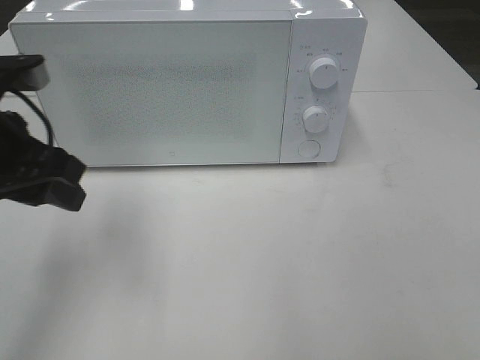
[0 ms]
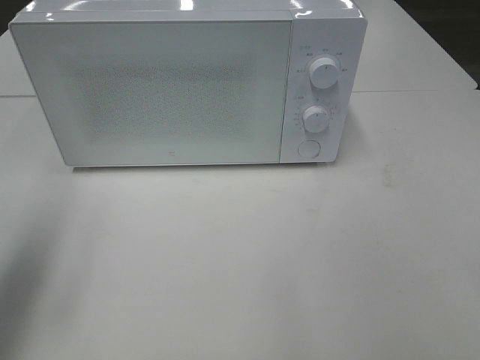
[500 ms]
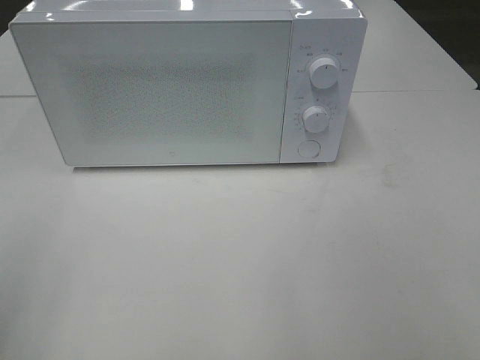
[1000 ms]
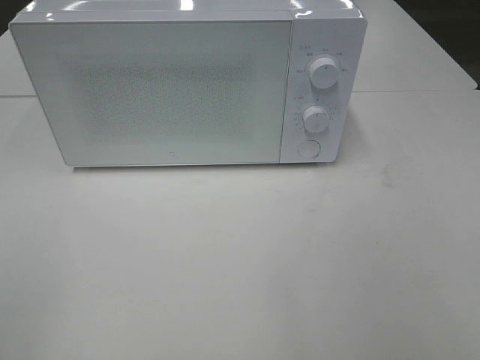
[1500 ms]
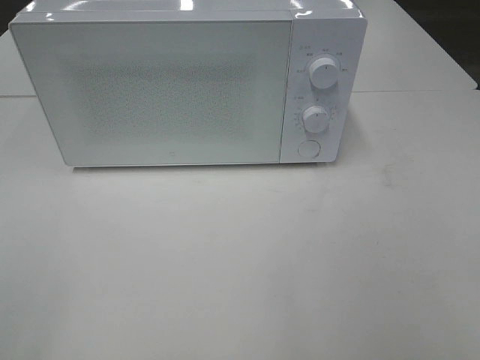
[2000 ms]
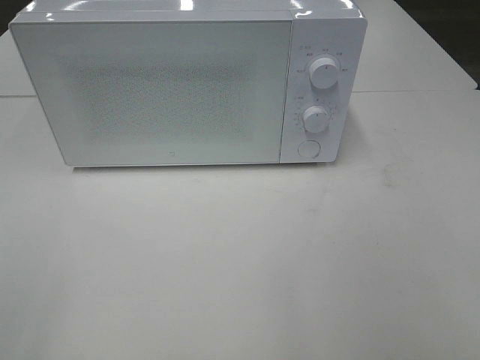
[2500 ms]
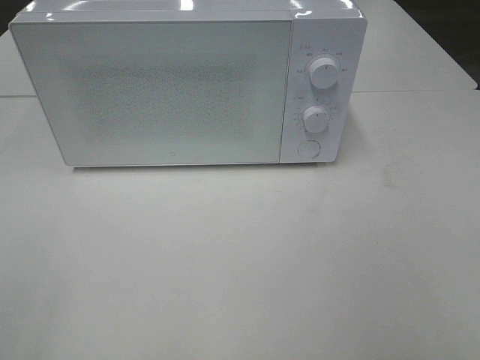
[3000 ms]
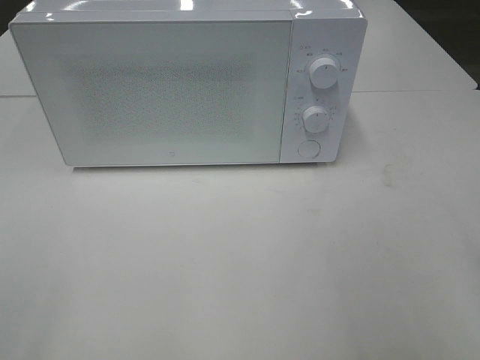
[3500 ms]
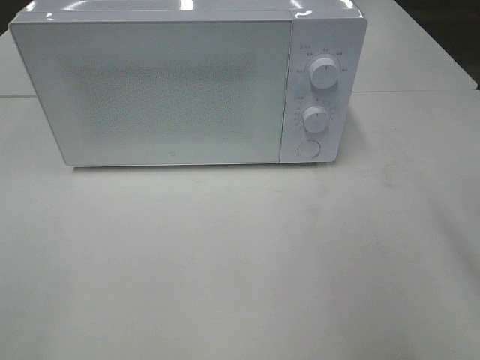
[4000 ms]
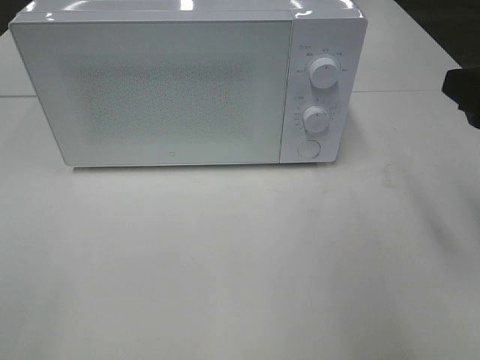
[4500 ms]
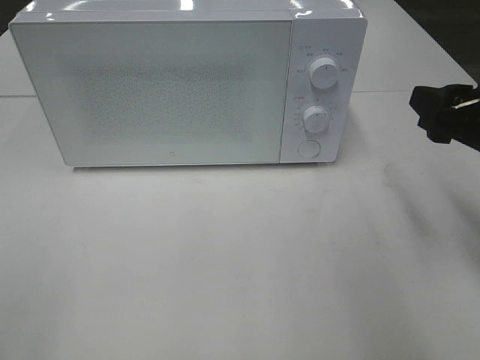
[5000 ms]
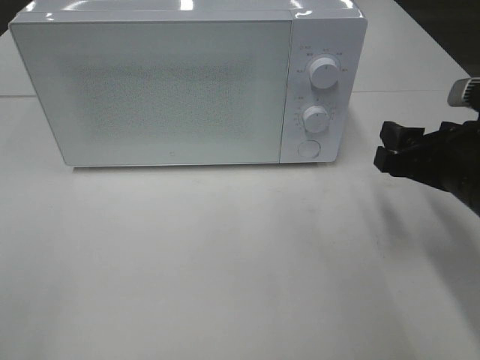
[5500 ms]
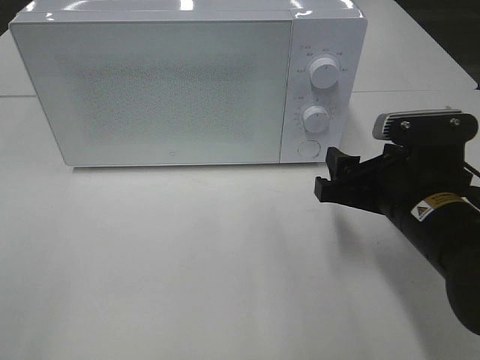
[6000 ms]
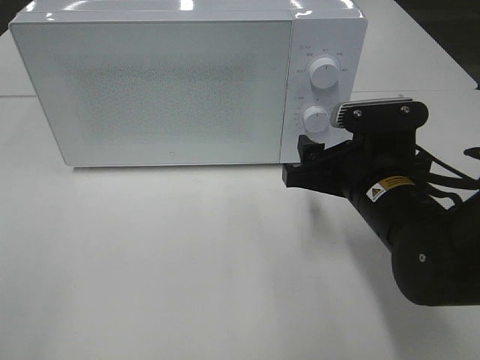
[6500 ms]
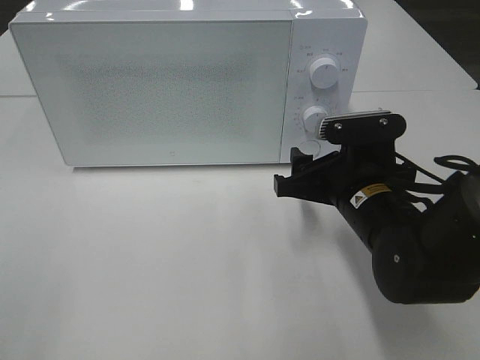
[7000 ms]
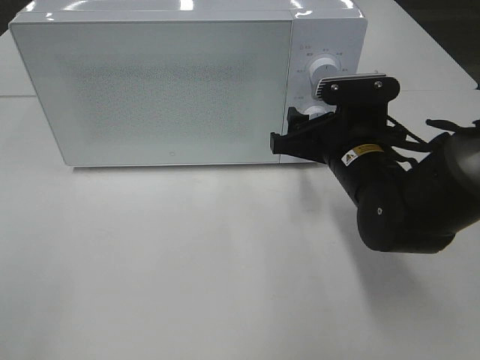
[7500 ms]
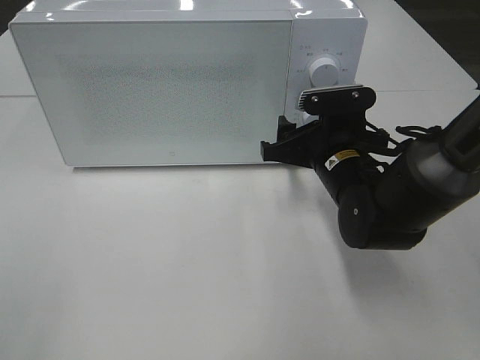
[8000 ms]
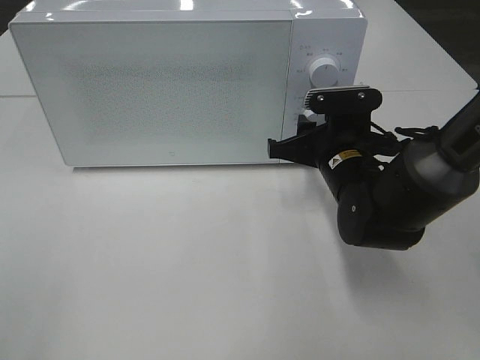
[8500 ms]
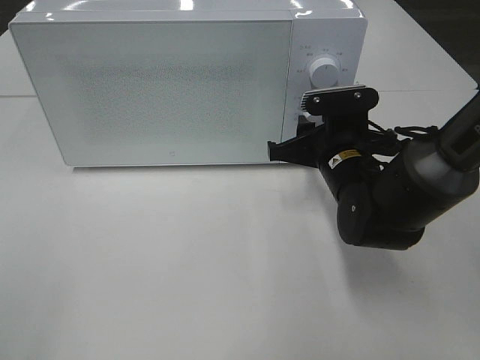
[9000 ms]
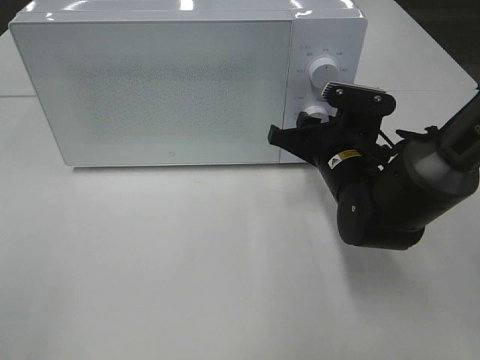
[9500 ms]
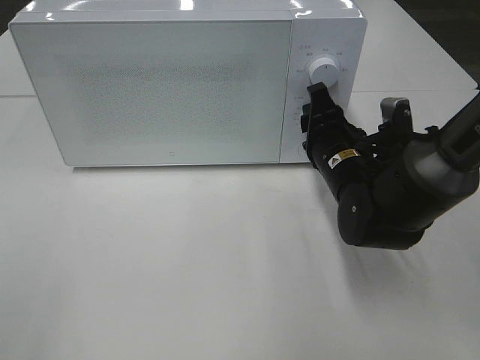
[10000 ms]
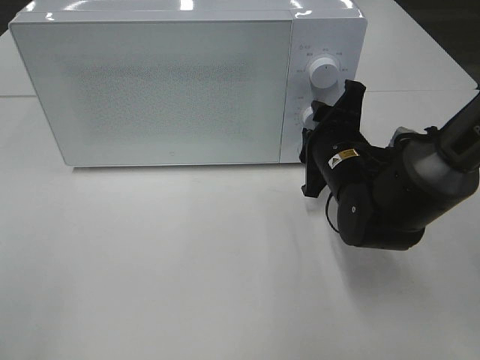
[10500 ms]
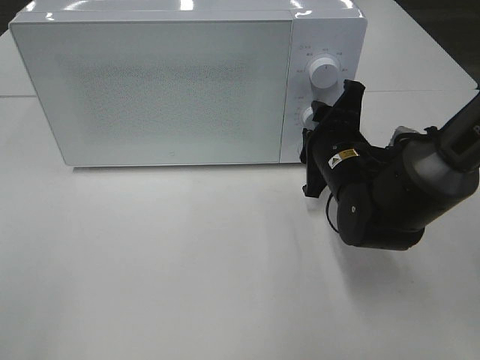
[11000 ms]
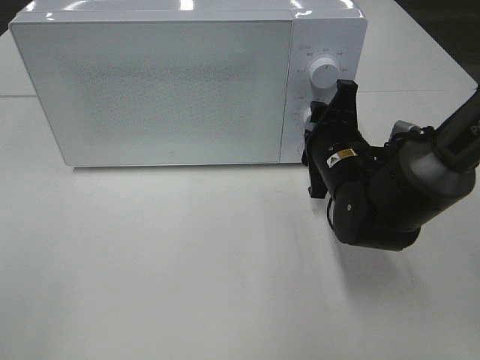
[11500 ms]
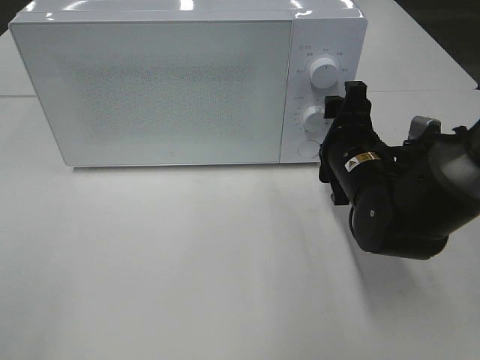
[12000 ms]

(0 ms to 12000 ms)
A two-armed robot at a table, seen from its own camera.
Task of the whole recording: Heat the burger.
Step, 0 ms - 11500 ms: Right hand: twist timer button.
0 ms - 2000 ms: The left gripper travels backward and to the left by about 25 cm.
4000 ms - 6000 ms: The right gripper heads downward, to the left and forward, covering roughly 20 cm.
6000 ms - 8000 ms: The right gripper travels forward by roughly 10 cm.

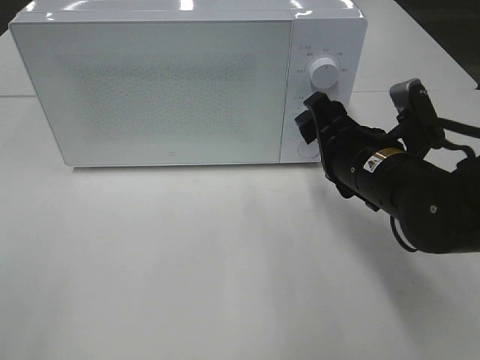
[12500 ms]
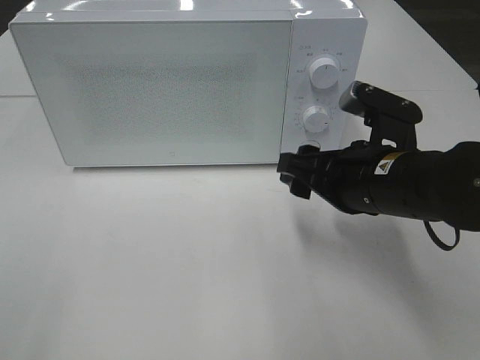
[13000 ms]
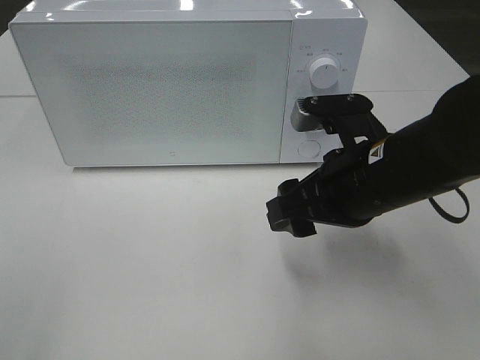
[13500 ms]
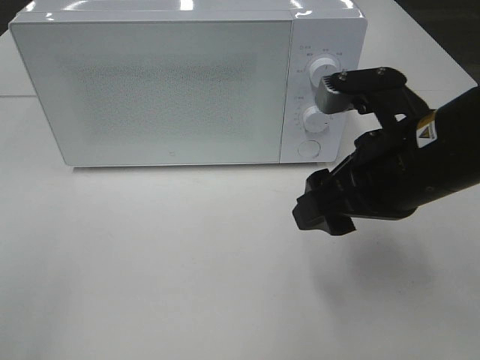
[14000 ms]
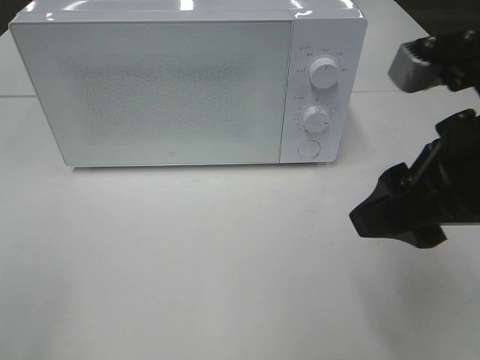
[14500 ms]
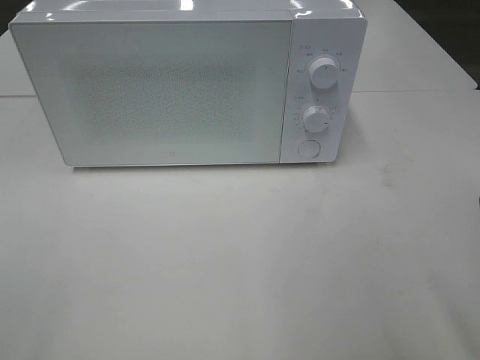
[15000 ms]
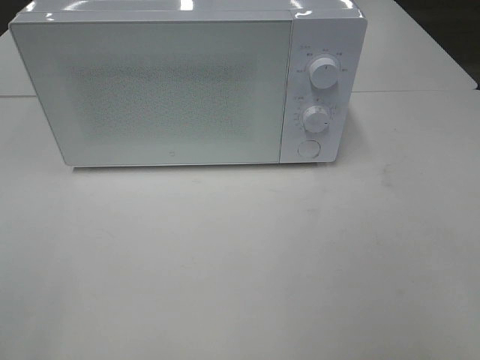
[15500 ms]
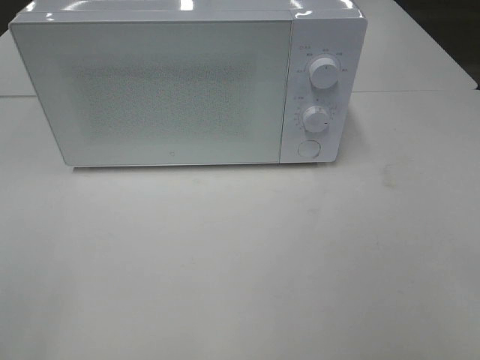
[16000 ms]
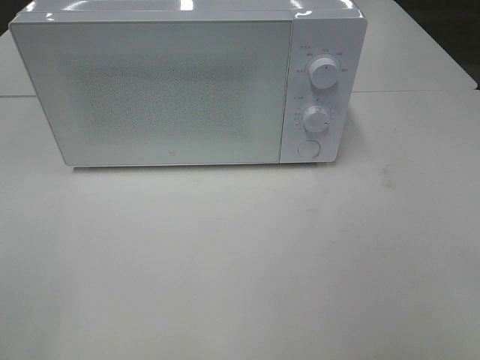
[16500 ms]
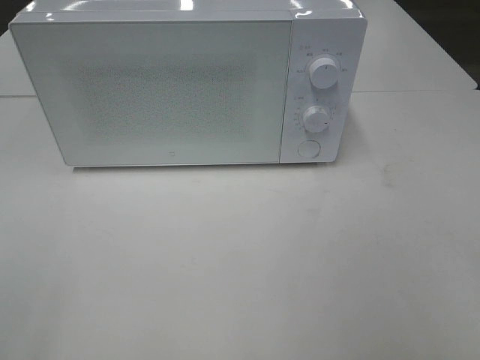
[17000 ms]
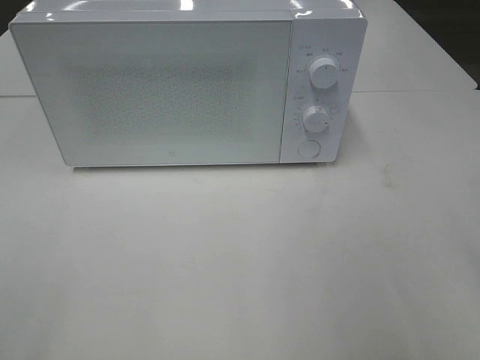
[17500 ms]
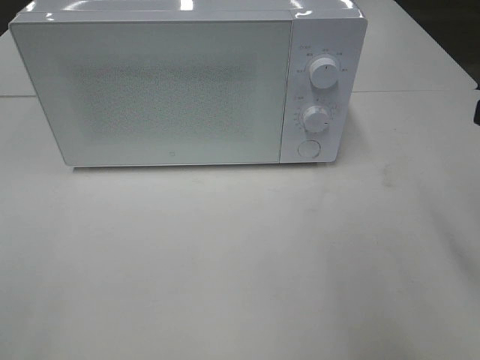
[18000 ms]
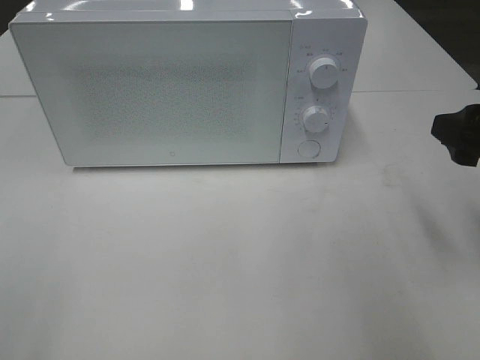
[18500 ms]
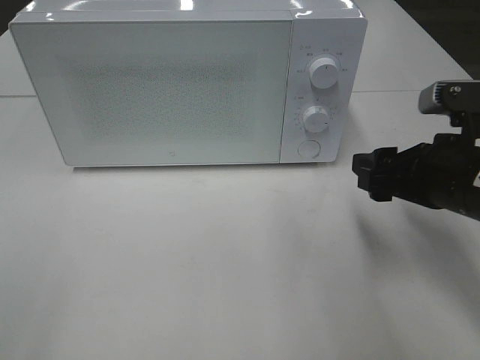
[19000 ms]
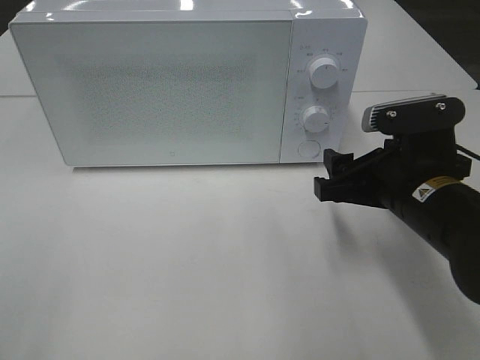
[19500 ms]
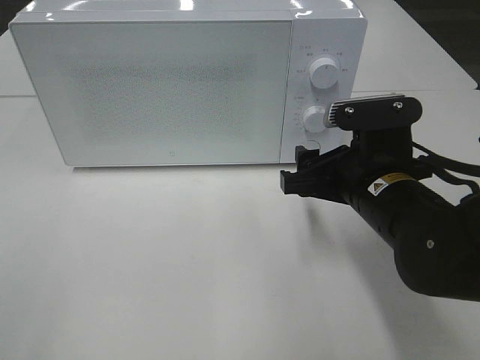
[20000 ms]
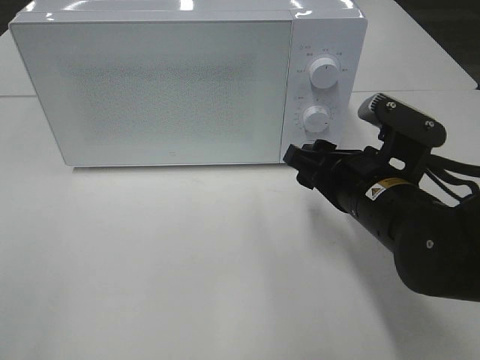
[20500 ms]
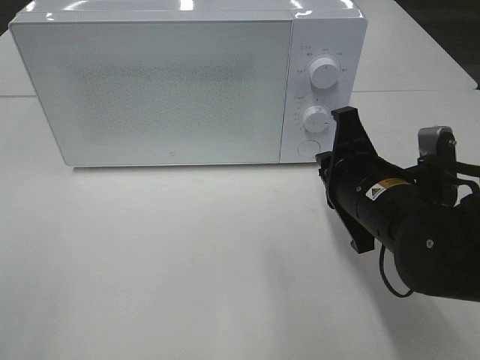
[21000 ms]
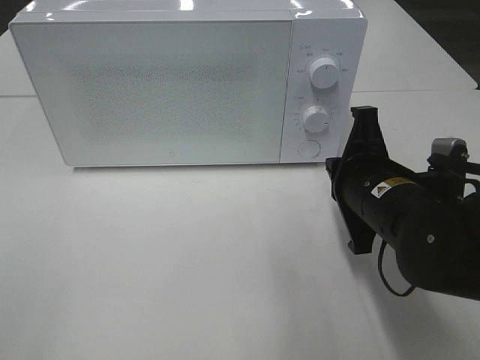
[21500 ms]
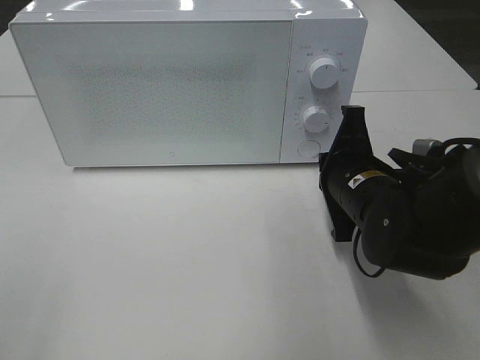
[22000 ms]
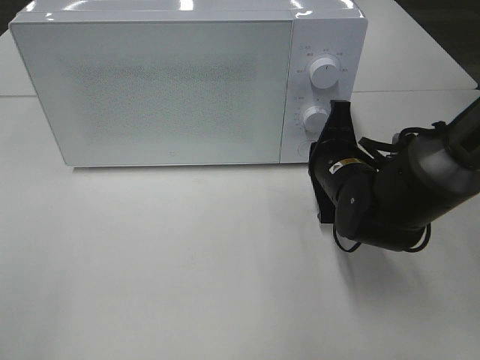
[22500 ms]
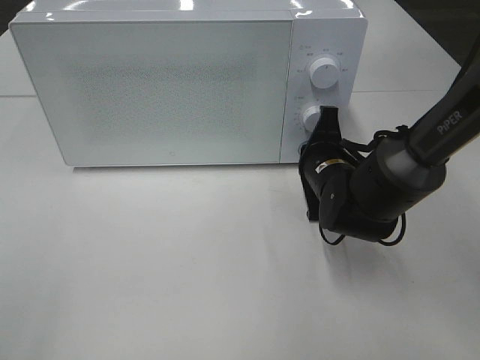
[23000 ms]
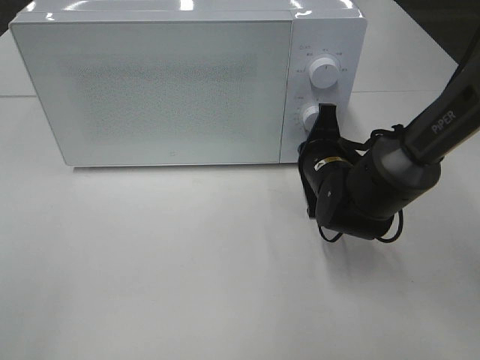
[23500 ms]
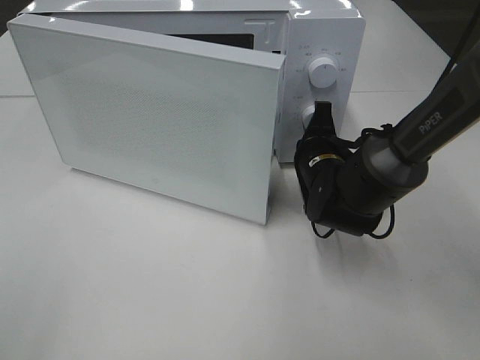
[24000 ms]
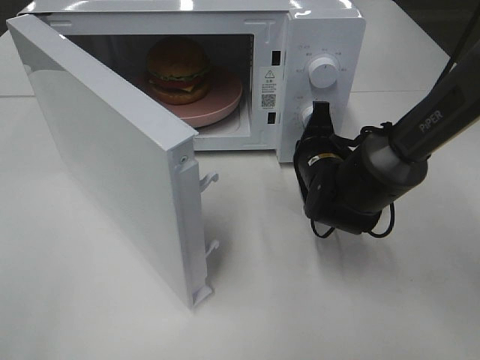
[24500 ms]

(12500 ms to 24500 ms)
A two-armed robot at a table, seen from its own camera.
Task of the whole recording: Heat the burger.
12500 ms - 14500 ms: The right gripper goes about 15 cm upward and backward.
14500 ms - 16500 ms: The right gripper is displaced backward and to the right by about 20 cm.
16500 ms - 18500 ms: The right gripper shifts about 20 cm forward.
18500 ms - 20500 ms: The right gripper shifts about 15 cm to the left and downward.
20500 ms - 22500 ms: The right gripper travels forward by approximately 10 cm, and closes up.
22500 ms - 24500 ms: The right gripper shifts by approximately 5 cm.

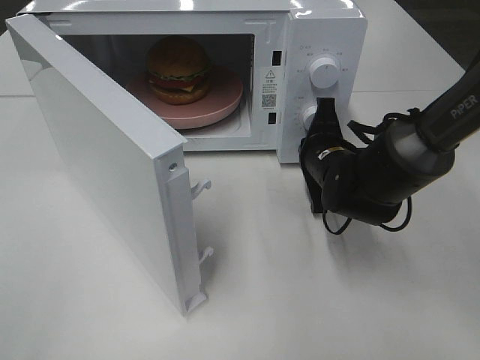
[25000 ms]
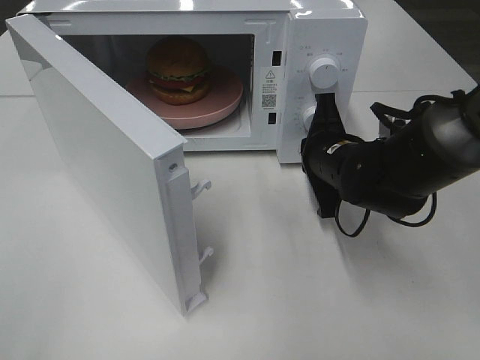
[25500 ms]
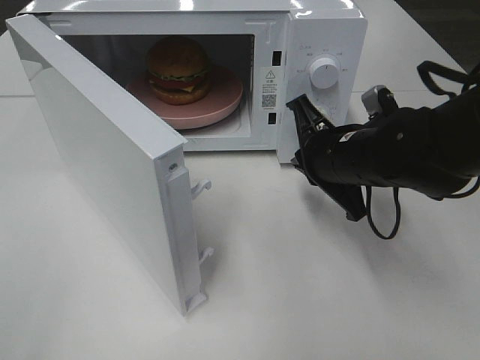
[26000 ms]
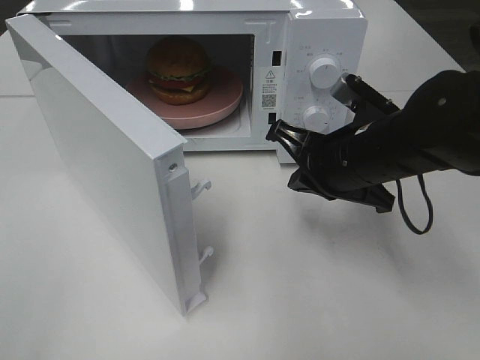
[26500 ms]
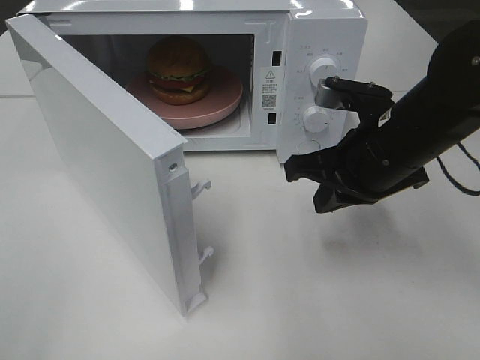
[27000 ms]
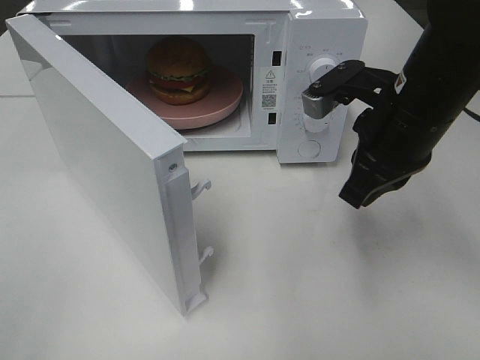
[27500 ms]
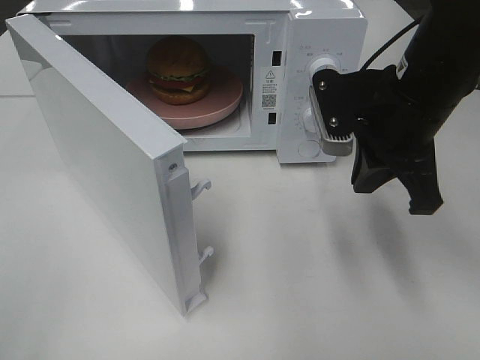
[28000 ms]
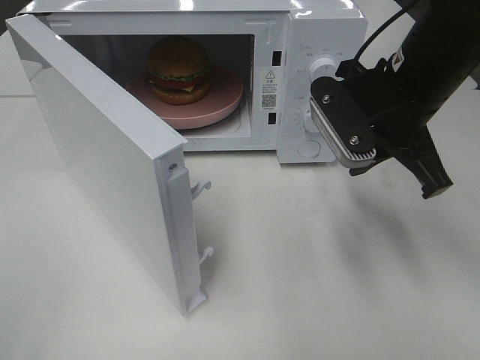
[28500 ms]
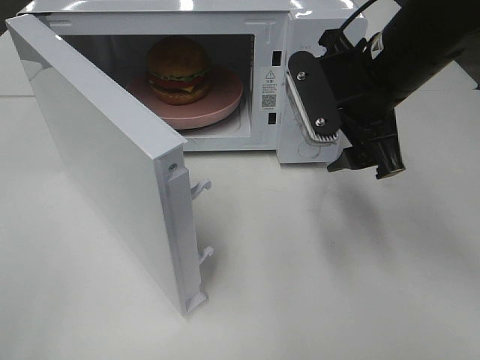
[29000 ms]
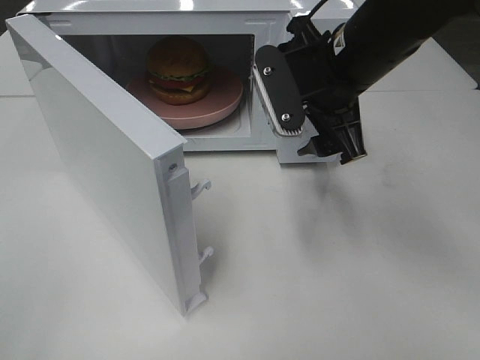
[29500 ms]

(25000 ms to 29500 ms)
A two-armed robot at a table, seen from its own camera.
Task of the whole recording: Heat the burger.
25000 ms - 27000 ms: The right gripper goes approximately 10 cm upward and backward.
27000 ms - 29500 ms: The right gripper shifts approximately 5 cm upward, and opens.
